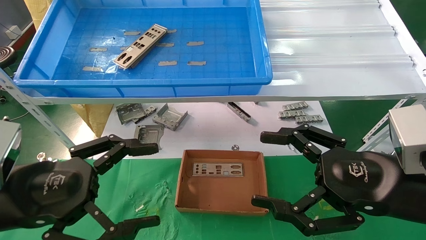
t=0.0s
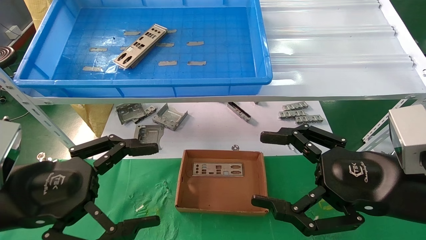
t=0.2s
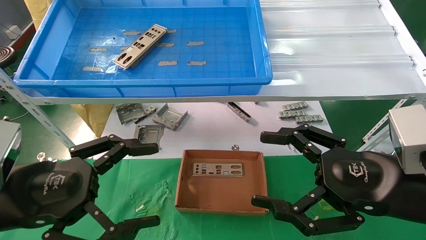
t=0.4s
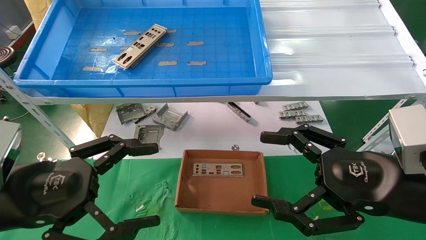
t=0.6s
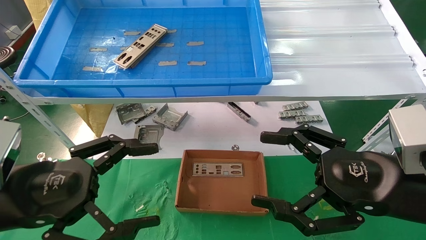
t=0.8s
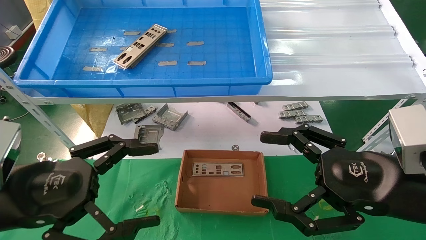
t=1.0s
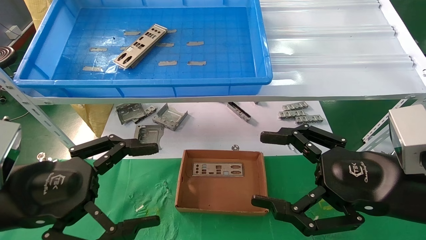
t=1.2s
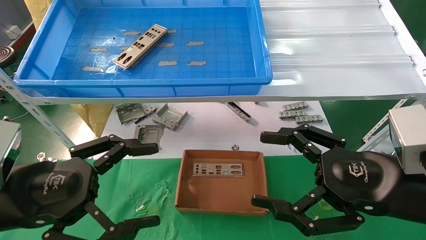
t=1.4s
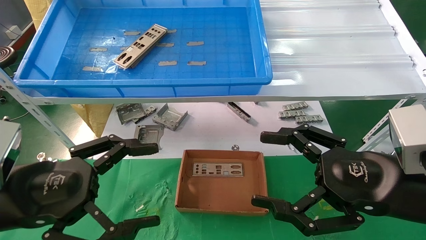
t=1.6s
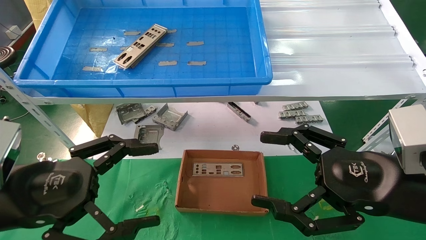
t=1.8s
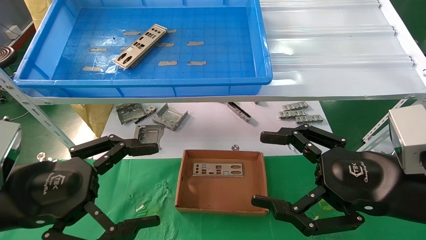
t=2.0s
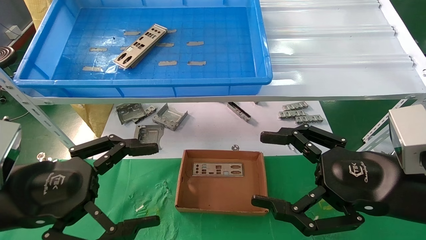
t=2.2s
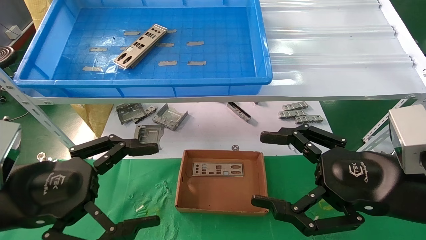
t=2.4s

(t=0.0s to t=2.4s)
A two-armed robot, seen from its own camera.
Task of the whole recording: pick up the parts on the tray and put them in the cardboard box.
t=0.0s - t=2.4s: Both grippers stay put.

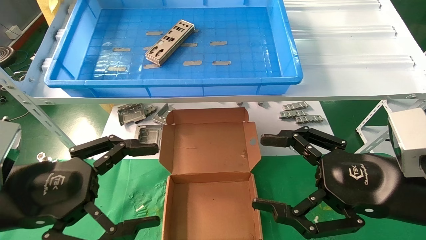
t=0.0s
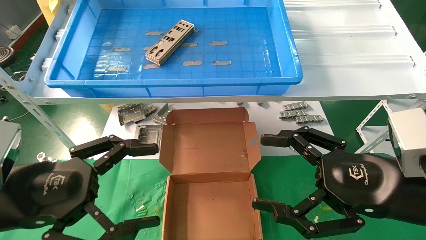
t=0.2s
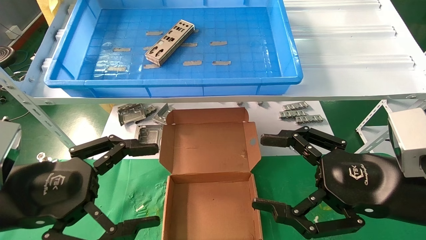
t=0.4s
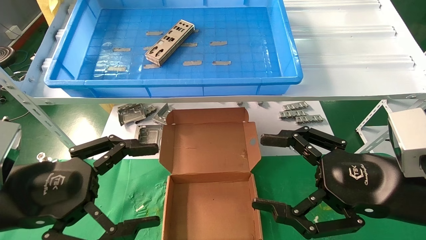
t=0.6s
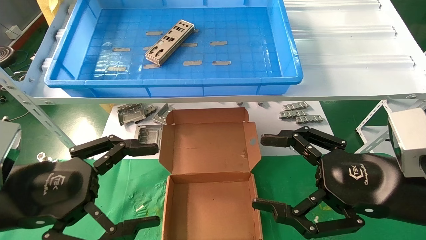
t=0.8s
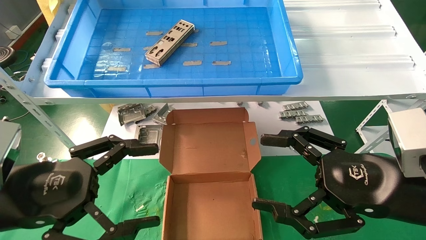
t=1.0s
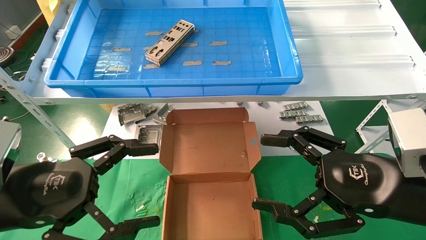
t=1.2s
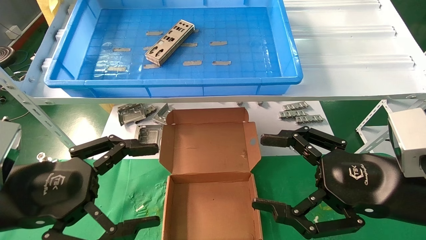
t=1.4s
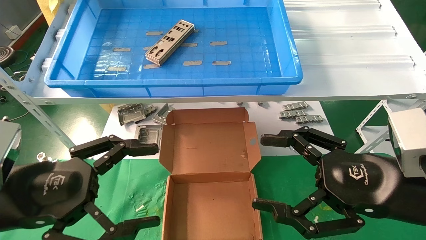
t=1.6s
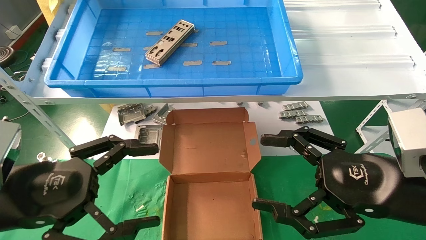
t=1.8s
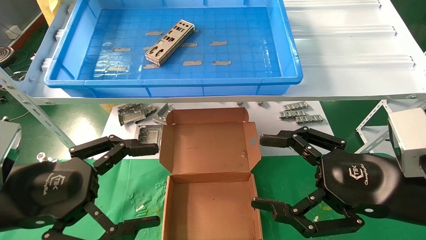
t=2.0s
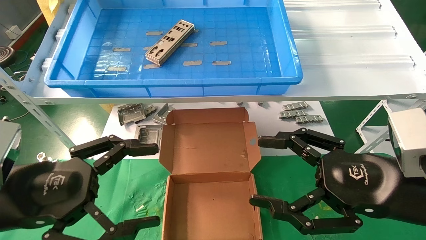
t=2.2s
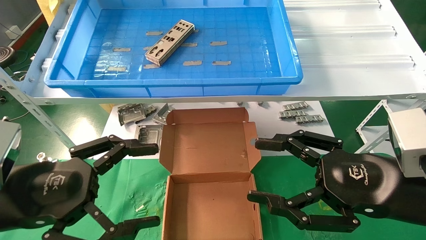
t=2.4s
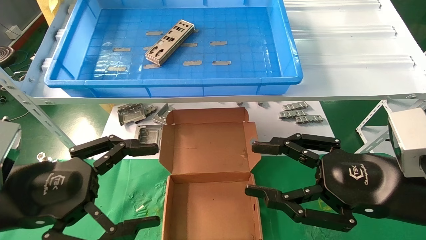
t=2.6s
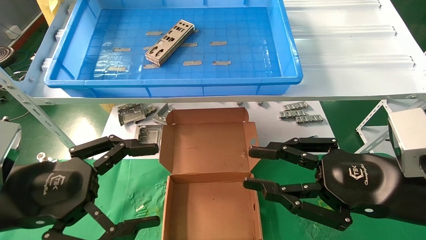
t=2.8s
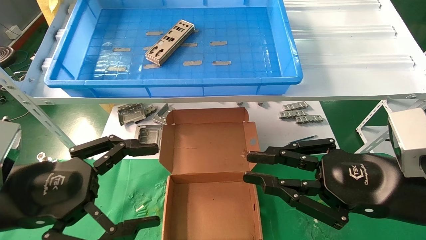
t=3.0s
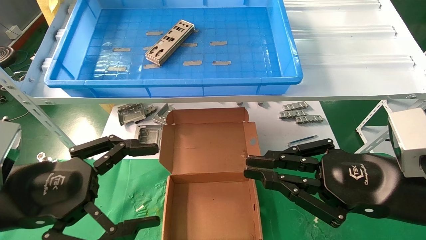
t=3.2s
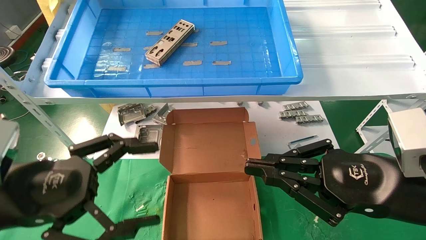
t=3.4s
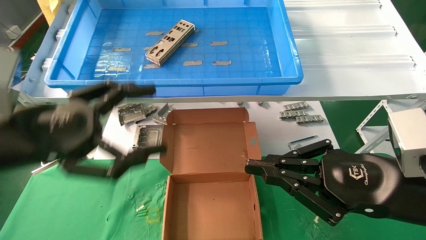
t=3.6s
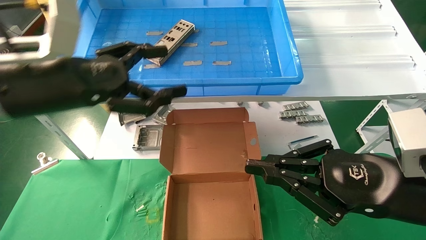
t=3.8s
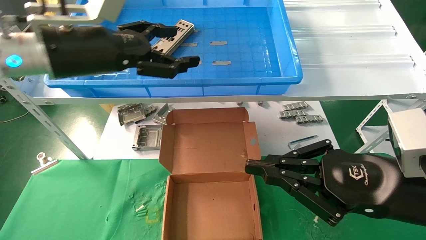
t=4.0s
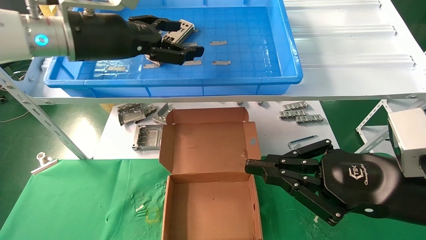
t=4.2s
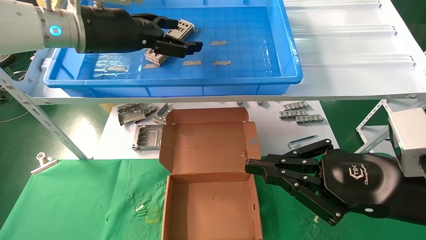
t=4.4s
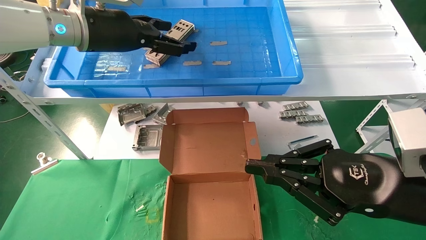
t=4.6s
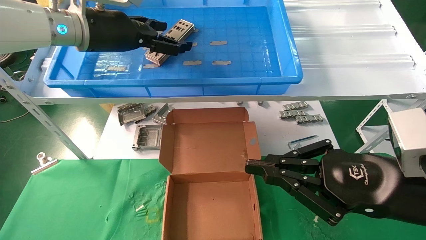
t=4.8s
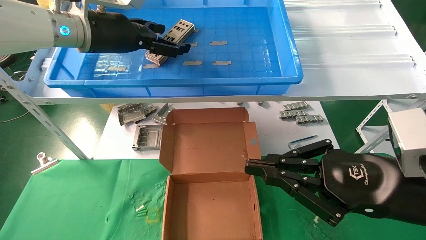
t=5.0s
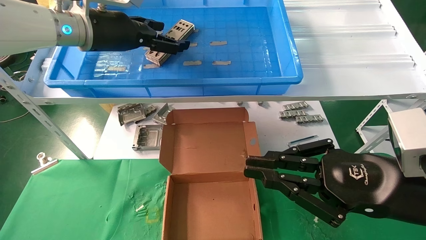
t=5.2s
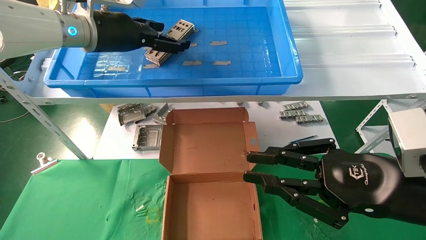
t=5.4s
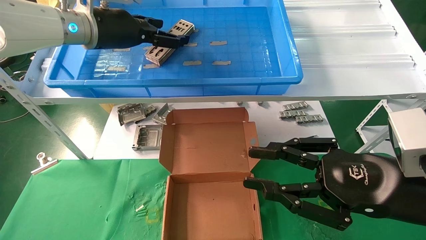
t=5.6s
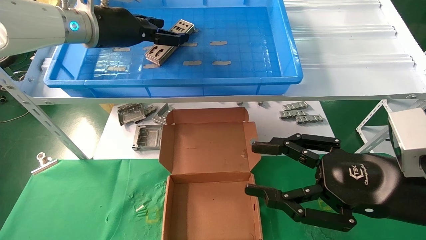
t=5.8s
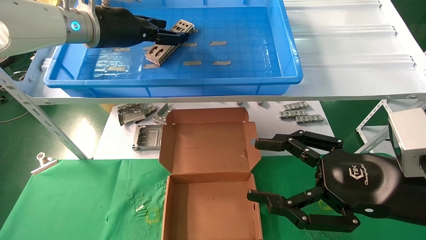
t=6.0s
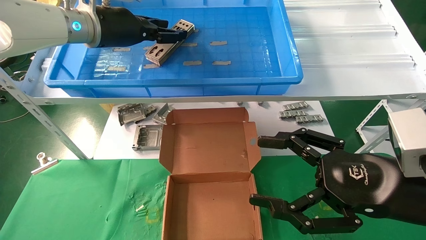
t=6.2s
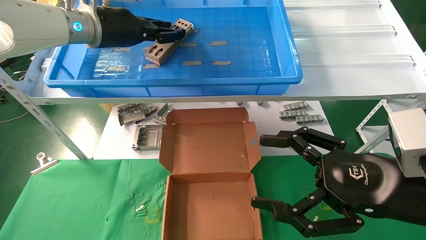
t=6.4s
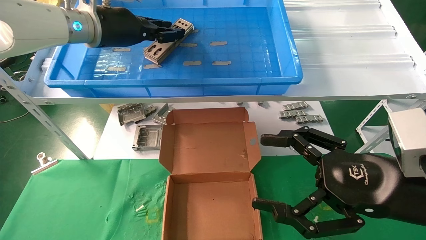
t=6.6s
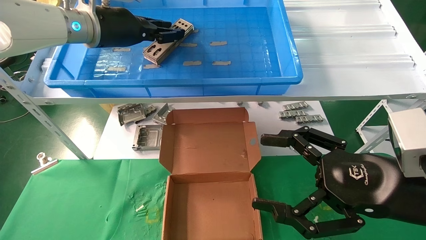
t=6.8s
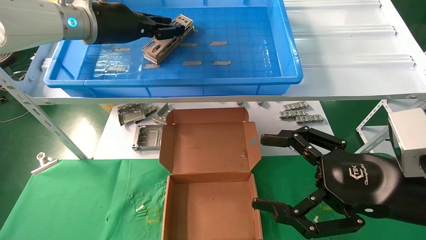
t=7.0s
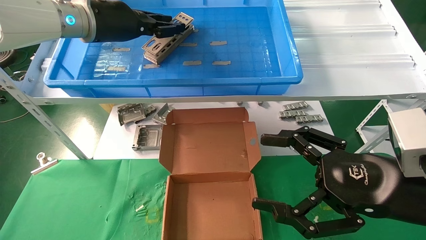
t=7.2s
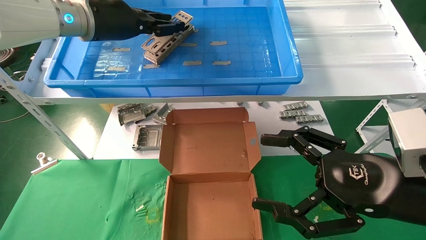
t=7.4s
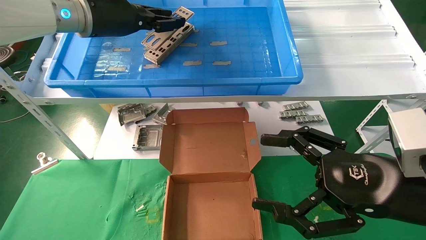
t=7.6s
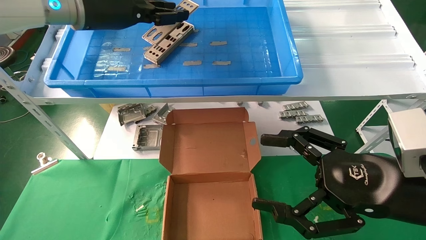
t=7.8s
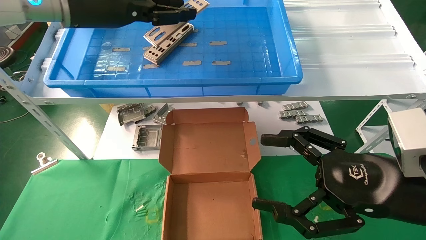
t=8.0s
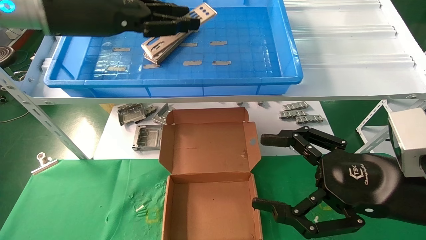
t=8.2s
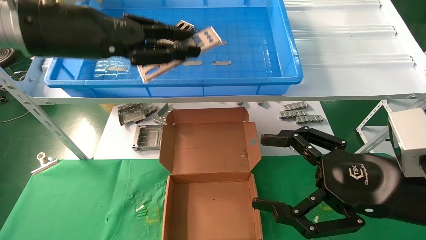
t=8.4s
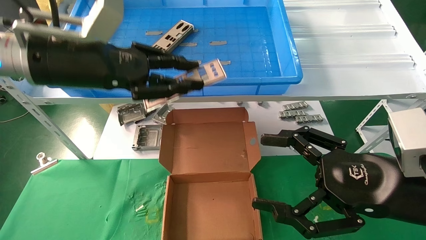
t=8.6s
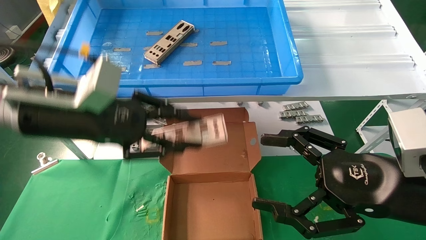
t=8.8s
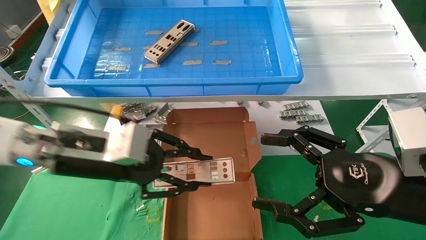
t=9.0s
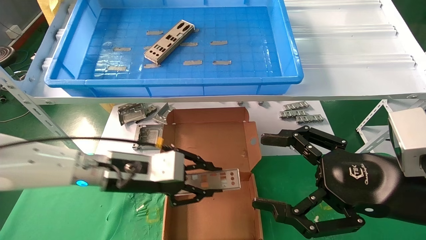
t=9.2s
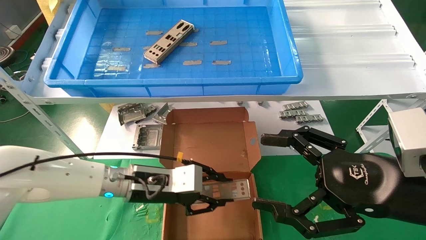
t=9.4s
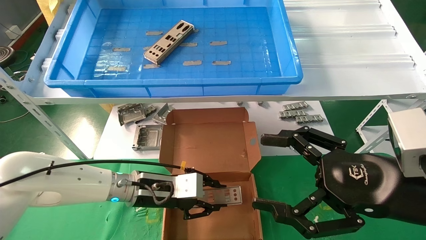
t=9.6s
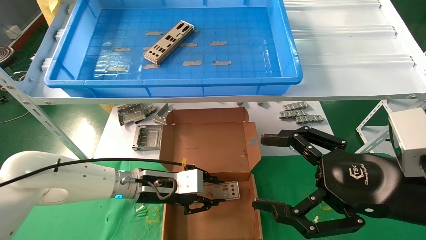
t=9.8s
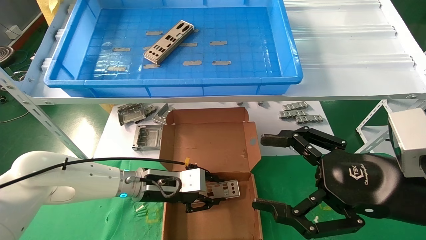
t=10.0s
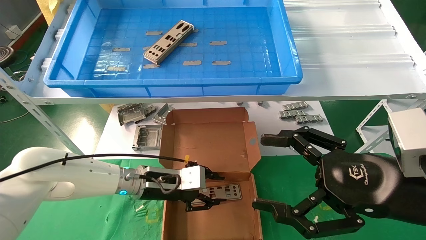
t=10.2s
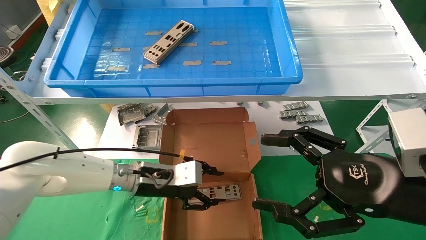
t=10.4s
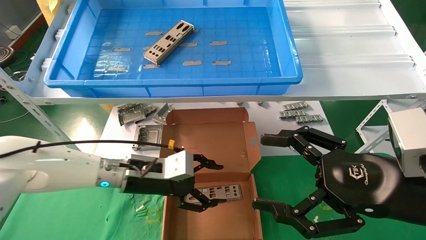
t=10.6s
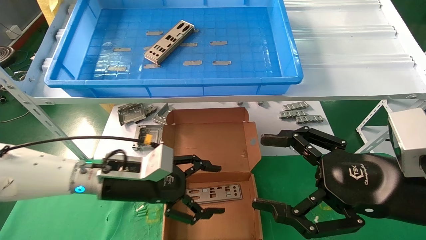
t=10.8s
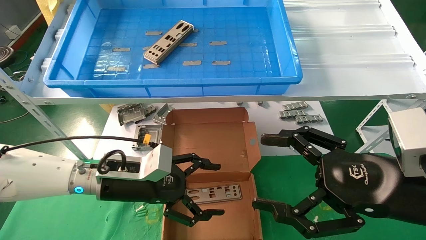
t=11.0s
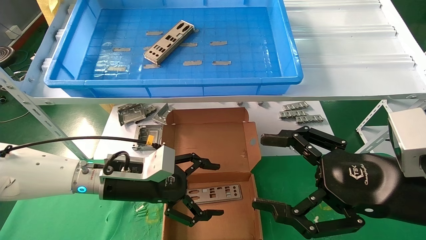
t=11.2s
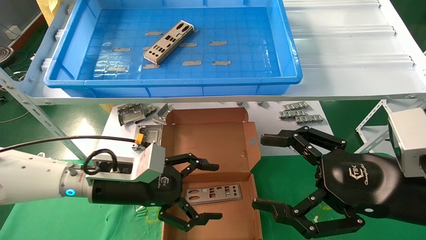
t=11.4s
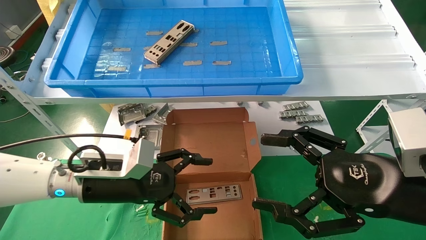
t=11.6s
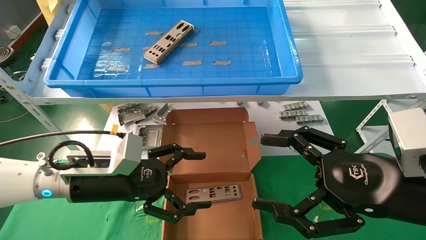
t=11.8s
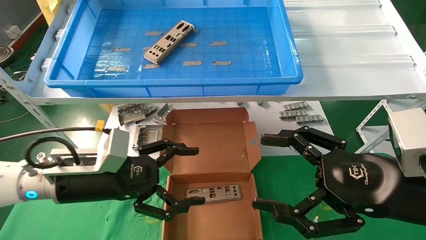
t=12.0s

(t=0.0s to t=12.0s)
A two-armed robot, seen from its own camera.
Task of the whole recording: pick up the parts on the tray and put them in the cardboard box.
Step, t=3.8s - t=6.6s: Pick up the IO bracket from the container box.
Step, t=6.8s - t=10.2s: Place the IO bracket into the ingredient slot.
t=0.0s - t=1.6s: The two grippers keep their place.
t=1.6s - t=3.0s: The right gripper closes up.
t=3.0s - t=4.4s: The left gripper travels forward and upward by some 25 cm.
t=4.4s - t=6.0s: The right gripper opens.
t=6.0s - t=7.6s: The right gripper opens. Meanwhile the left gripper closes its fingers.
t=7.6s - t=9.0s: The left gripper shifts approximately 20 cm downward and backward.
t=9.0s - t=10.4s: The left gripper moves downward, forward and to the right, approximately 15 cm.
t=10.4s - t=12.0s: The left gripper goes roughly 15 cm backward, to the left and upward, and opens its fingers.

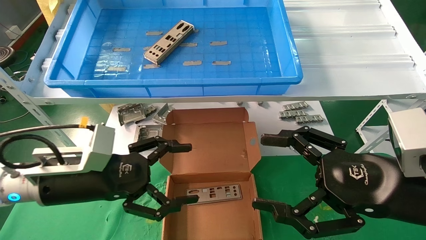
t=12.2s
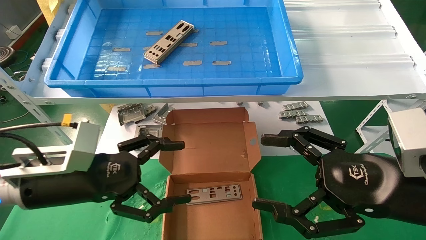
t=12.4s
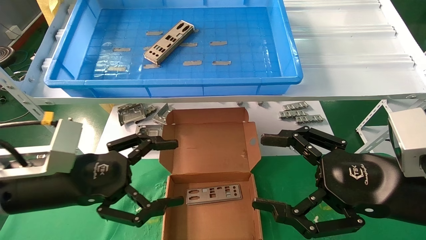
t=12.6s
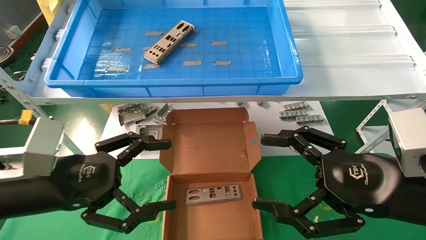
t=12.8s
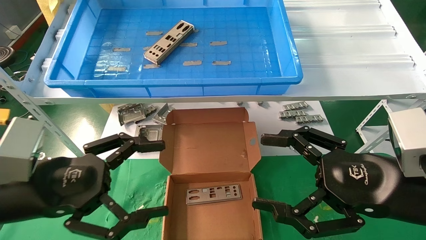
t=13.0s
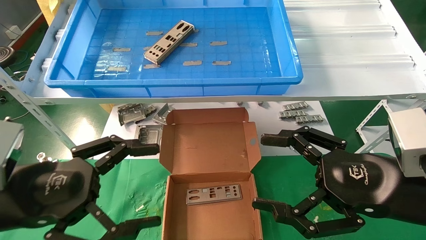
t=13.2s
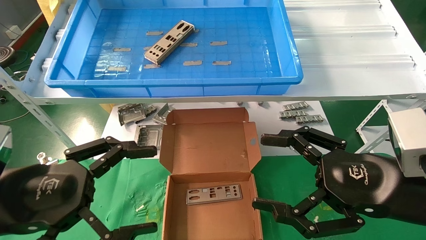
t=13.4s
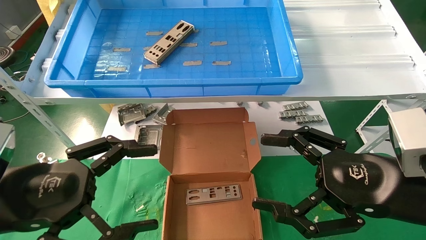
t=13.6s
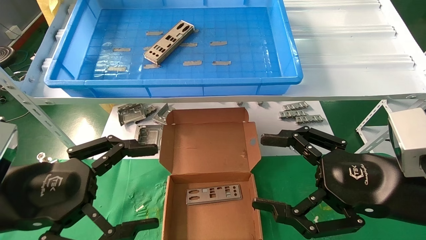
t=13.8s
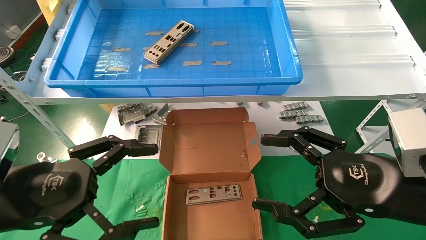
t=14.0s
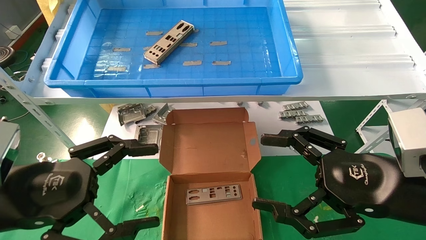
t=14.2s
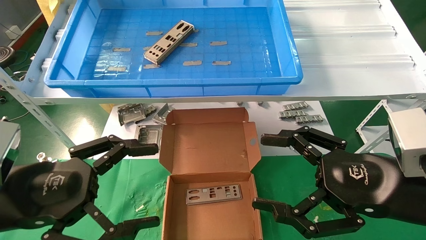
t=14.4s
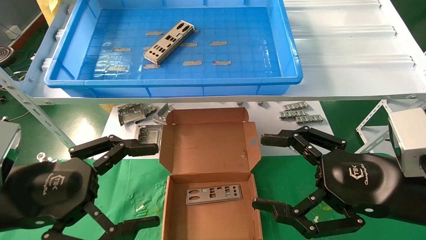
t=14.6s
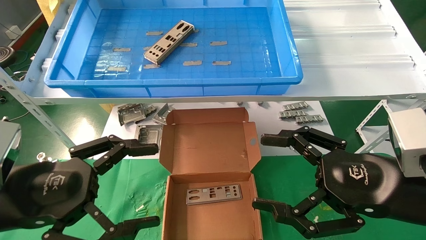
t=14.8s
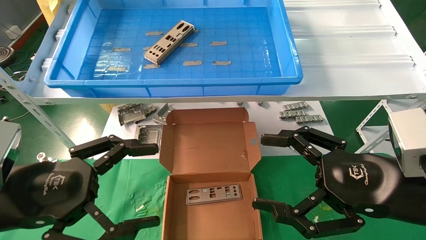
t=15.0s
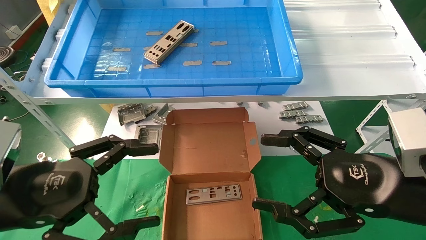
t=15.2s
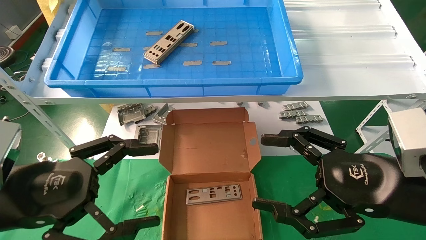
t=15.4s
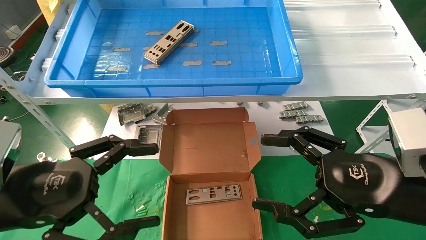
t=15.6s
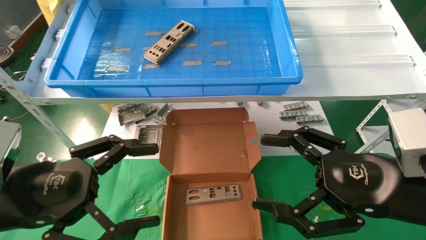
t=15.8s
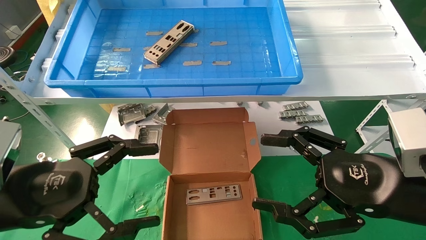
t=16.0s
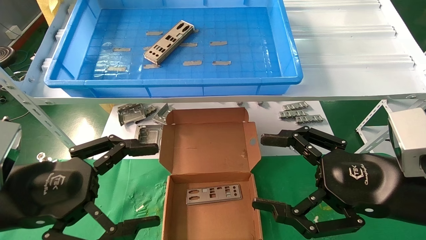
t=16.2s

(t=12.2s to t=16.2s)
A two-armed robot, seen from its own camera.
Task of the whole recording: pick up the parts on the tray and put them in the cardboard box.
t=12.2s - t=13.6s: The left gripper shifts roughly 10 cm backward.
t=13.6s - t=16.2s: Both grippers stay put.
